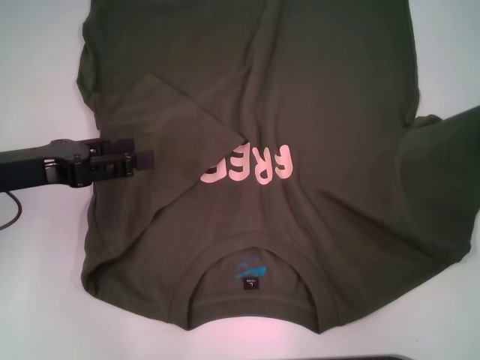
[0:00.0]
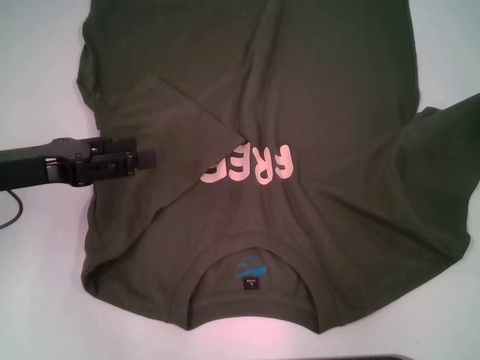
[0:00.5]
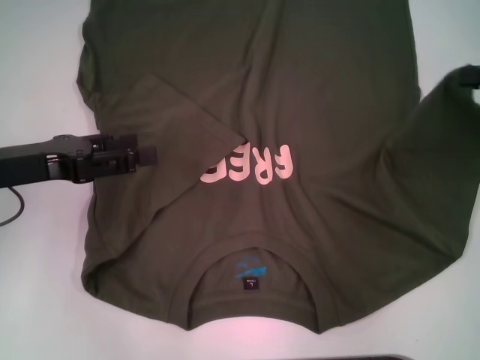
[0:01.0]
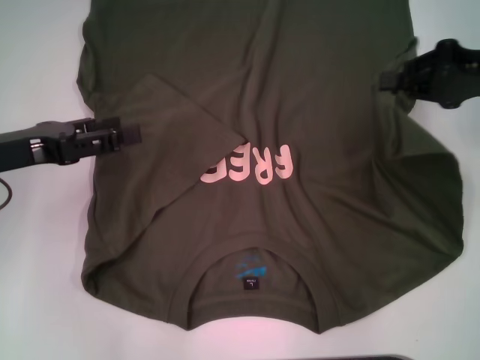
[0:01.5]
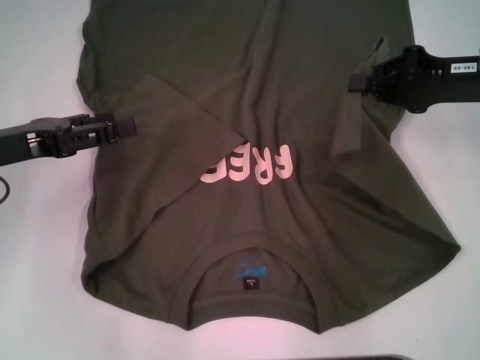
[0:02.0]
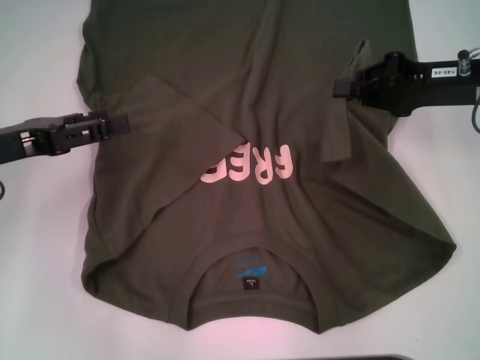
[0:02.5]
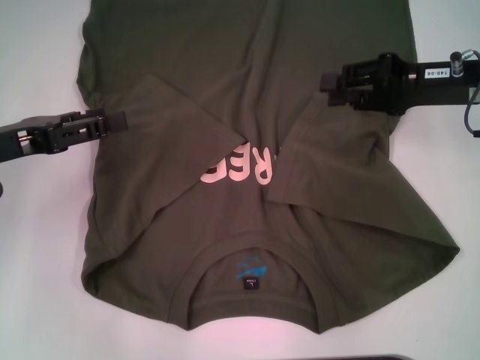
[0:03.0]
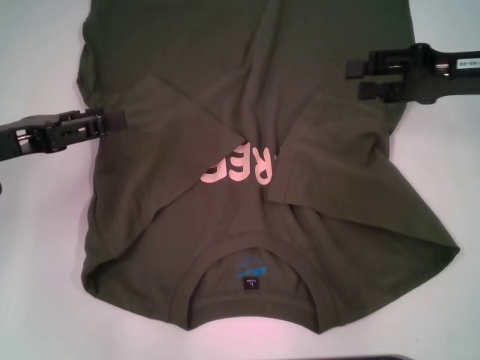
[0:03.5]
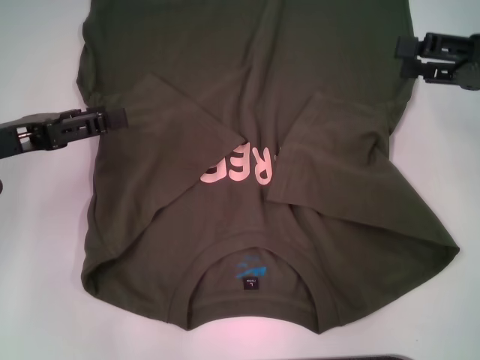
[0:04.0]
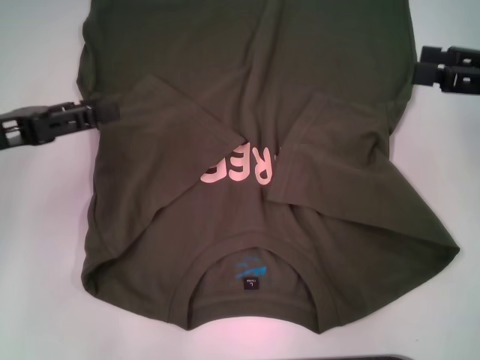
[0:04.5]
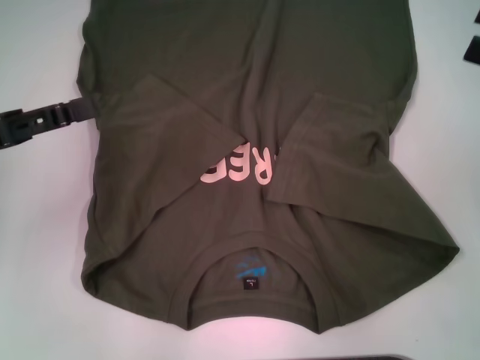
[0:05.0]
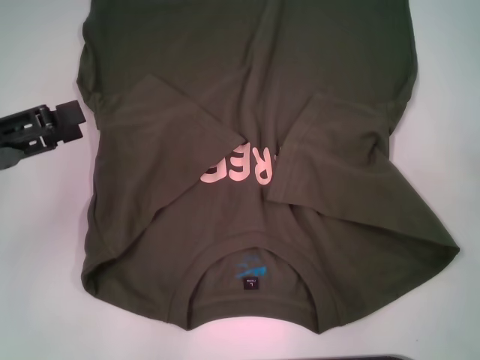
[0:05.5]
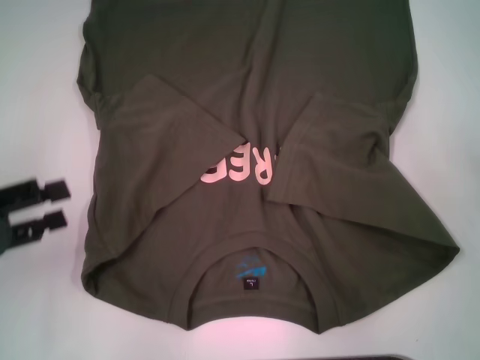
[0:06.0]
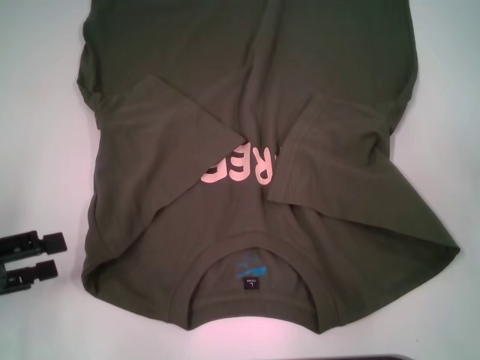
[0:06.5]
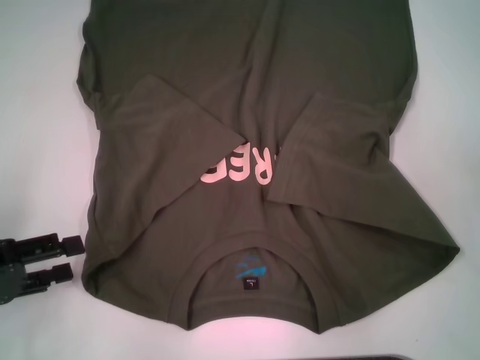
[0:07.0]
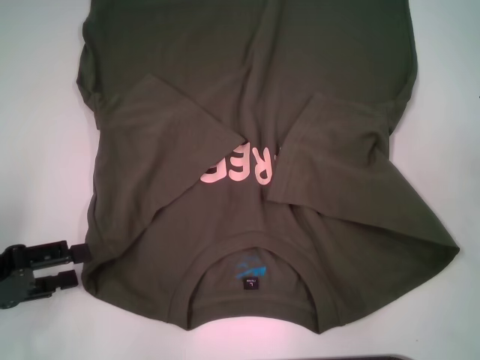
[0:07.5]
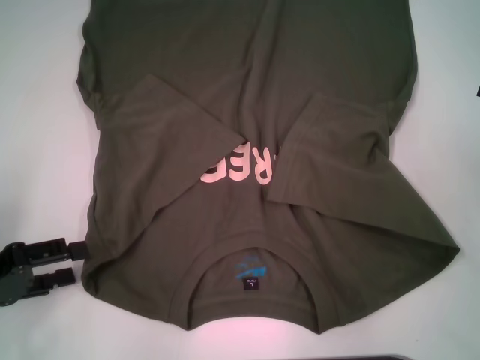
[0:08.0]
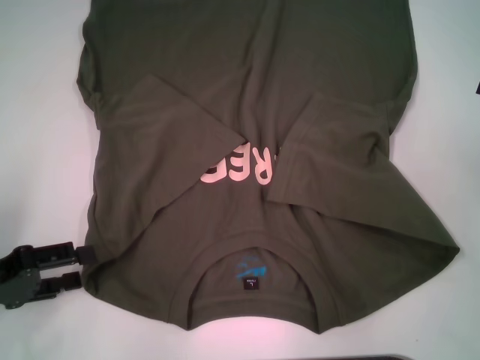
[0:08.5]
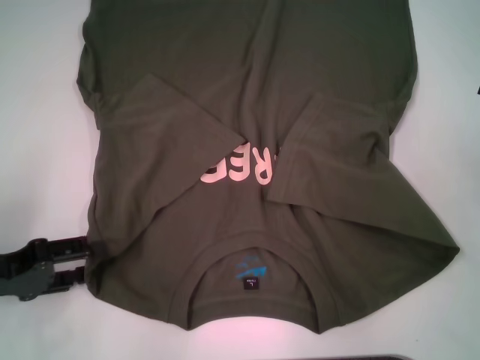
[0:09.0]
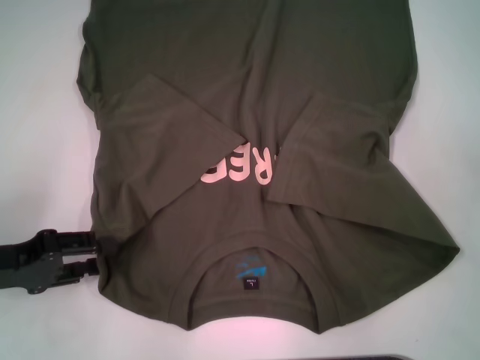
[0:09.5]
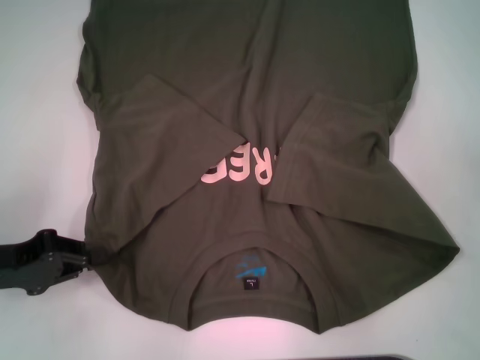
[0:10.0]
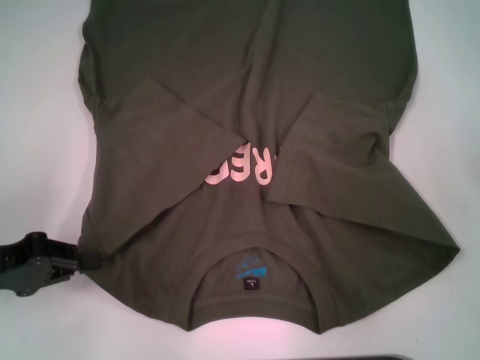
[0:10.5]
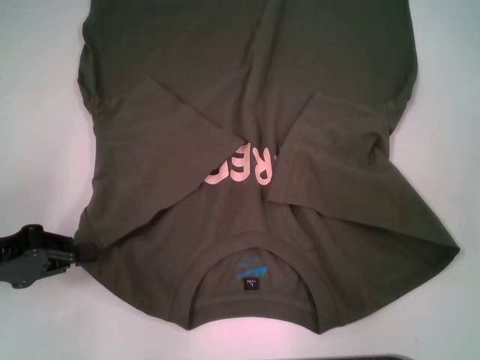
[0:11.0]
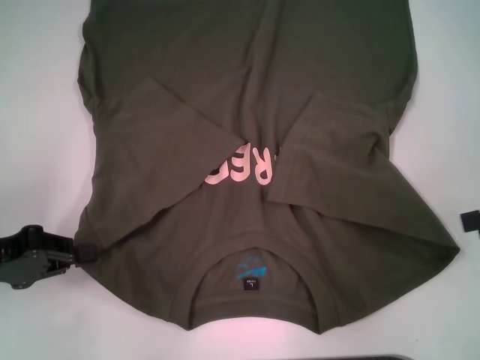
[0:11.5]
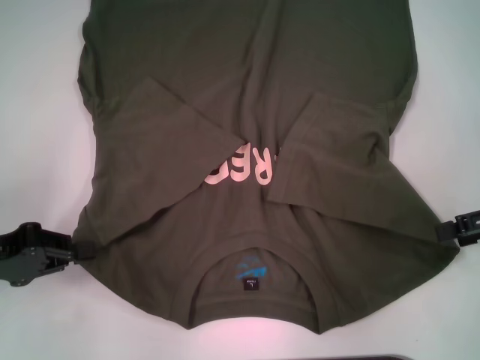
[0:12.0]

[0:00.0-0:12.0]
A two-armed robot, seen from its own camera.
Step, 0:00.0 to 0:02.5: Fold the bottom right sleeve with your right hand.
Step, 0:03.0 to 0:10.0: Grab the bottom left corner with your left hand.
0:00.0 to 0:02.0: The right gripper goes roughly 15 cm to the left.
0:02.0 to 0:04.0: The right gripper changes place by some 5 cm, and opens.
0:04.0 to 0:06.0: The right gripper shifts approximately 10 cm backward and to the right. The left gripper moves backward, approximately 10 cm.
0:06.0 to 0:08.0: There are only small adjustments of the grippers.
0:08.0 to 0:10.0: The left gripper closes.

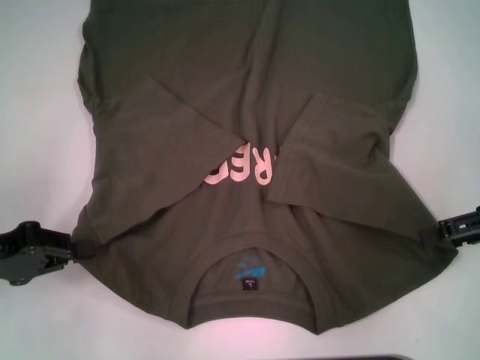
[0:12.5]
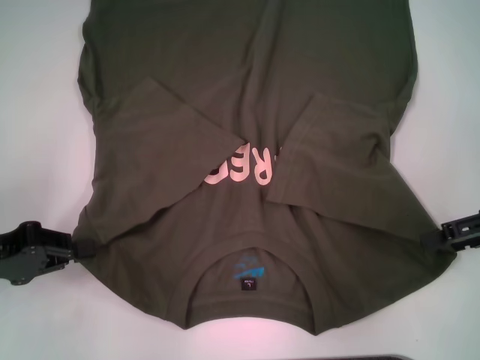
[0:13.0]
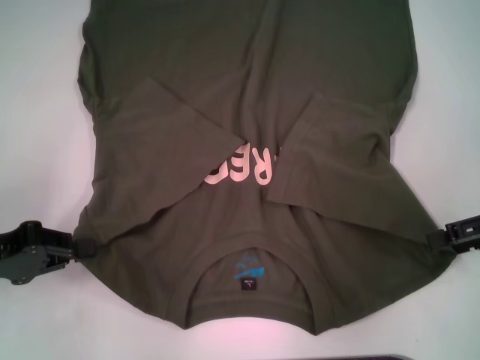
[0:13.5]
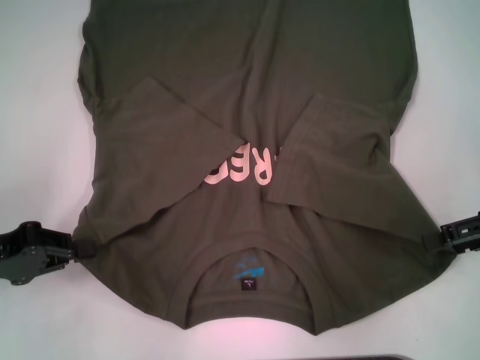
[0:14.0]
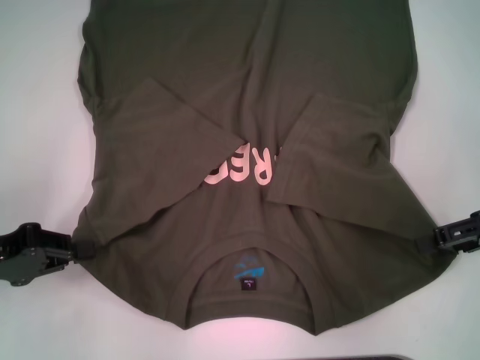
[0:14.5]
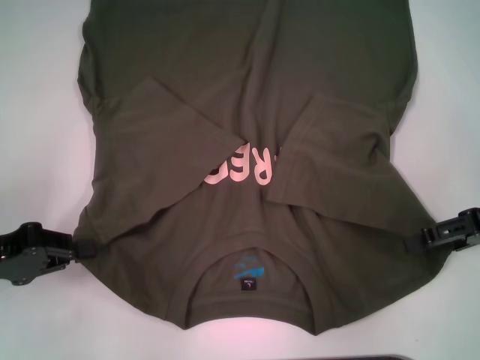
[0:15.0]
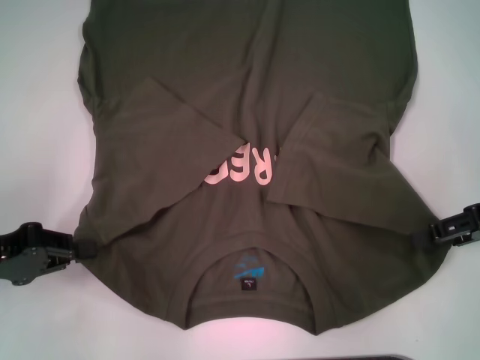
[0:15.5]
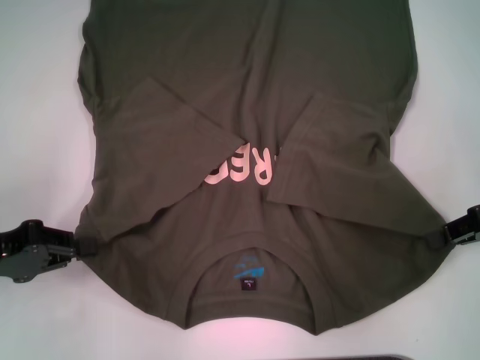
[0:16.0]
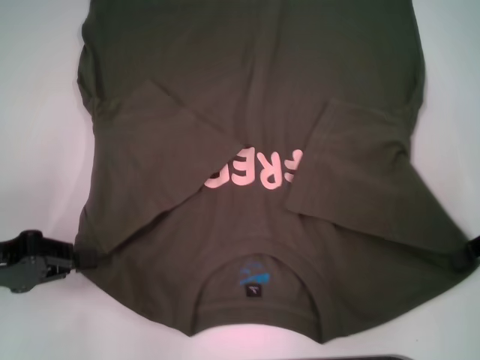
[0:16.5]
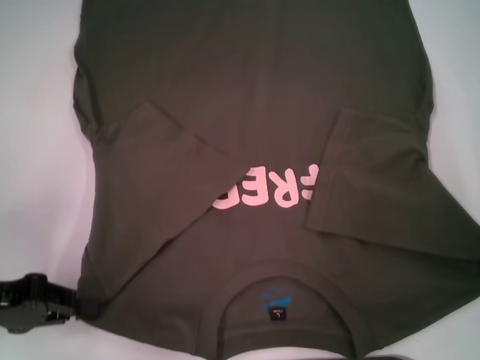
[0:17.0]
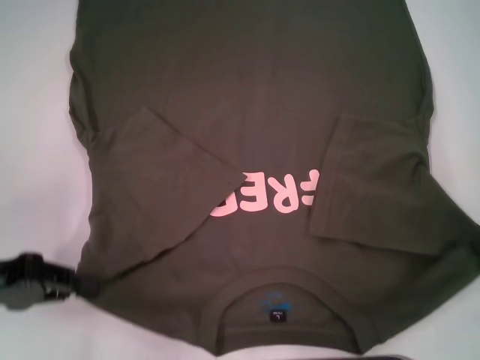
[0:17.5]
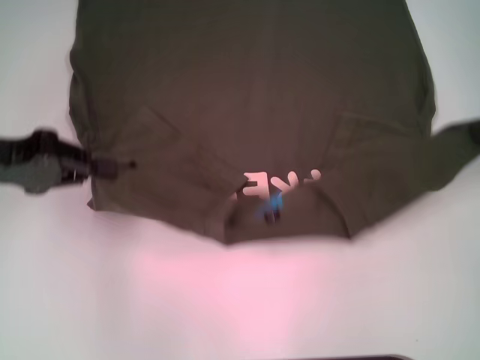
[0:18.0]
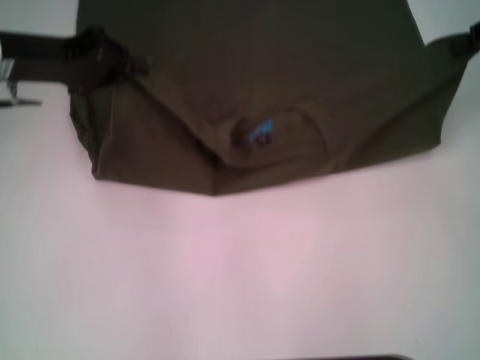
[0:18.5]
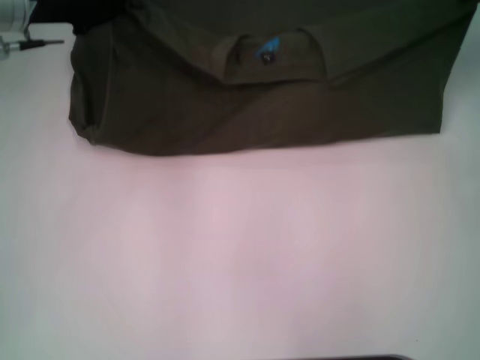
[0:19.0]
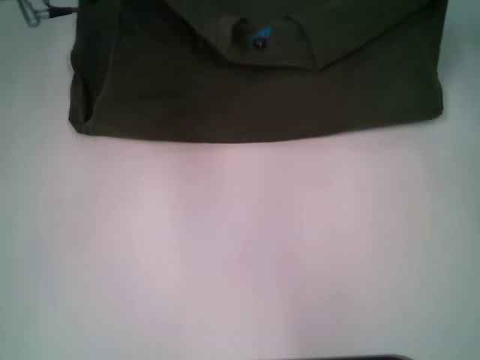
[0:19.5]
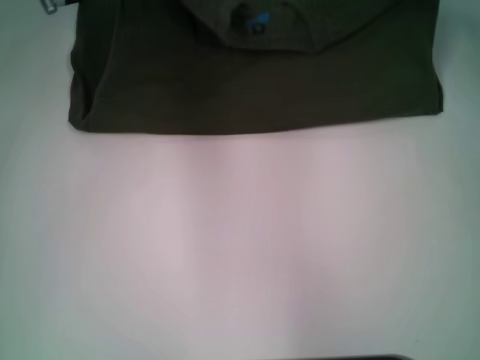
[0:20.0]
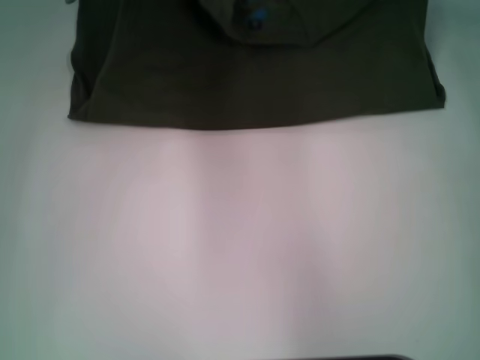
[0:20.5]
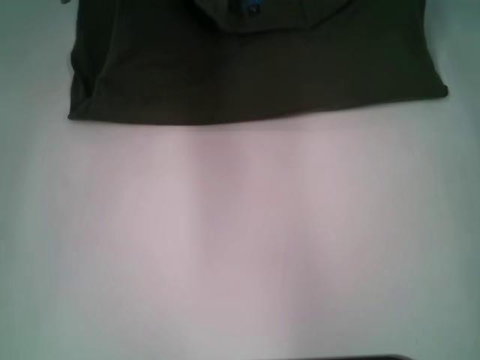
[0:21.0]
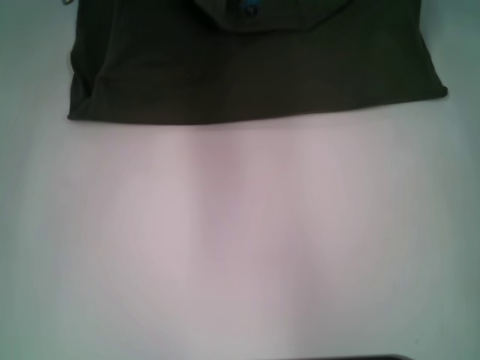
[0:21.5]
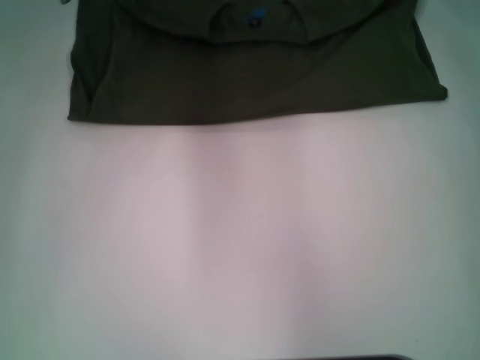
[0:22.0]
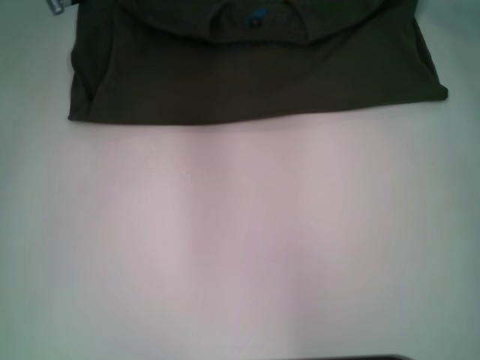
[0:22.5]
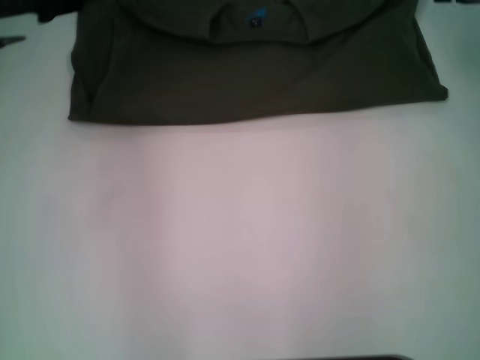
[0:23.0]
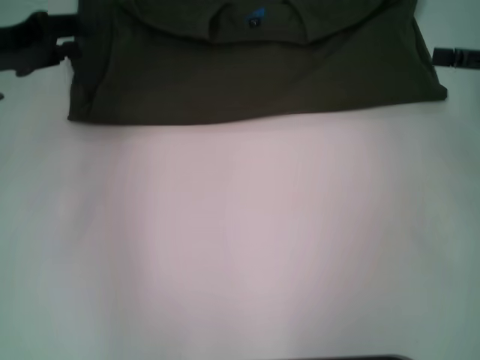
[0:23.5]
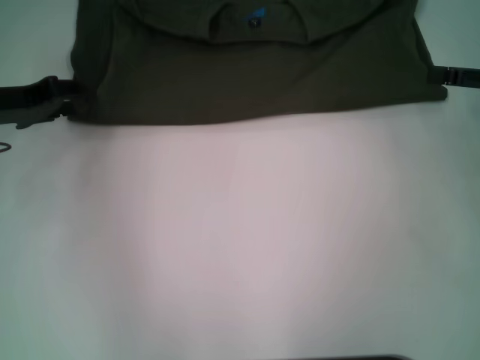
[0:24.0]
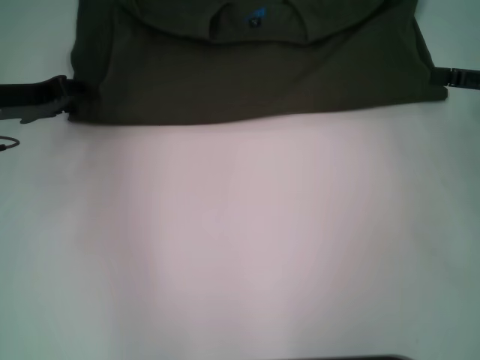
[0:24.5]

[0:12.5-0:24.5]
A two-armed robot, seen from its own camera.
Step, 0:12.5 to 0:16.0: Grab the bottom right corner with your right hand.
Step, 0:16.5 to 0:22.0: Fold the clothes with your left hand.
Step, 0:16.5 to 0:22.0: Fold the clothes with your right hand.
0:12.5 to 0:14.5: Neither gripper changes place.
0:14.5 to 0:16.5: The right gripper closes its fingers.
0:16.5 to 0:18.5: The right gripper is displaced forward and upward by about 15 cm. The left gripper goes about 20 cm forward, upward and to the right.
0:18.5 to 0:20.5: The left gripper is displaced forward and to the right by some 10 cm. Meanwhile the right gripper is displaced forward and to the left by about 10 cm.
0:20.5 to 0:22.5: The right gripper opens, while the left gripper opens up.
0:22.5 to 0:24.5: The left gripper shifts some 15 cm backward, to the left and downward. The right gripper goes some 15 cm backward and to the right, and opens its fingers.

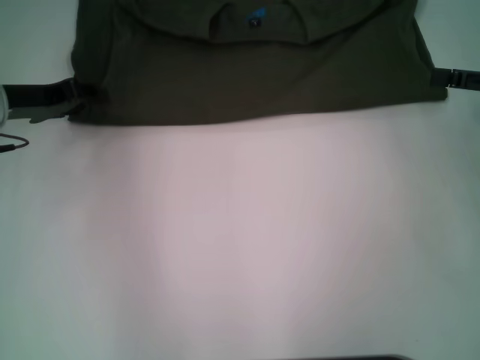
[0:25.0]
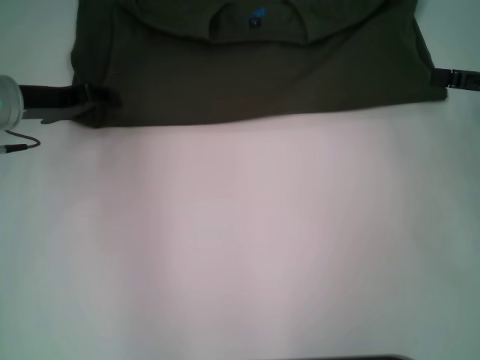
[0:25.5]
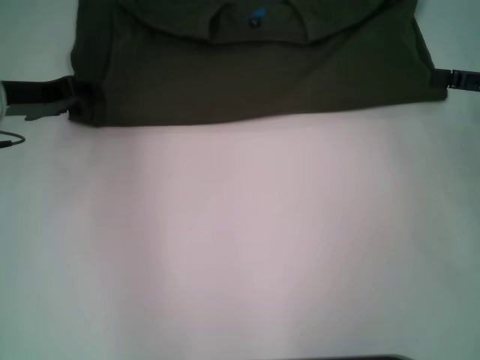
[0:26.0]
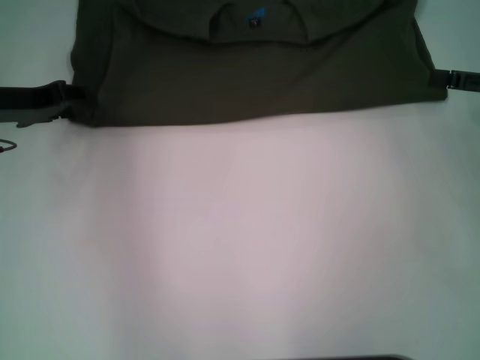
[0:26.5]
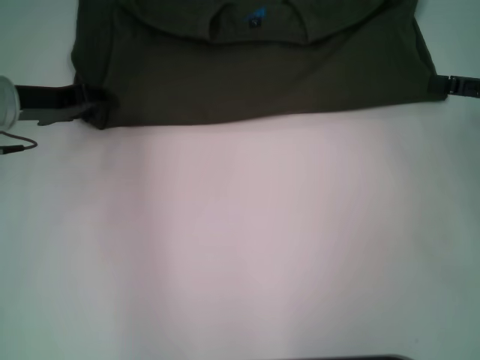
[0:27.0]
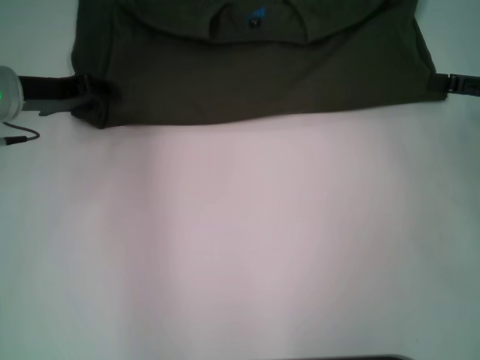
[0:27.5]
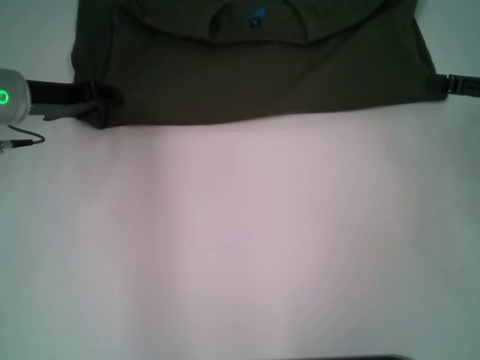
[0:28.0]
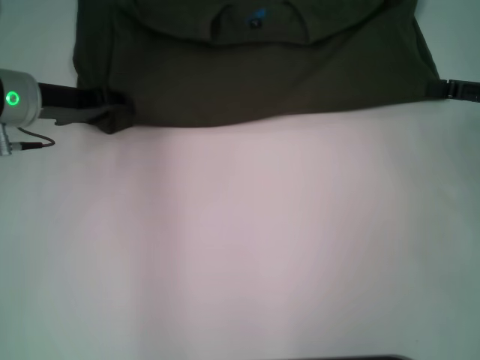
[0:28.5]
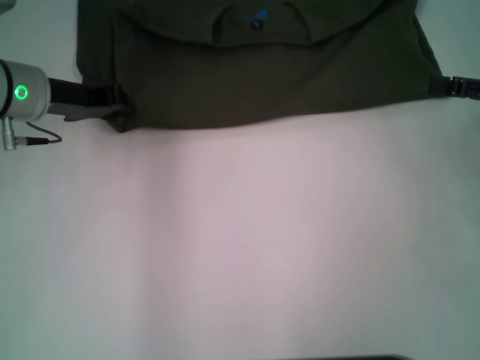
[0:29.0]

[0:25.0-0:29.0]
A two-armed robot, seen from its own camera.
0:25.0 to 0:27.0: The grippers move only a little.
0:27.0 to 0:29.0: The left gripper closes its fingers.
